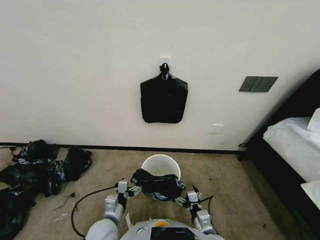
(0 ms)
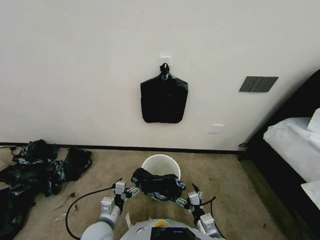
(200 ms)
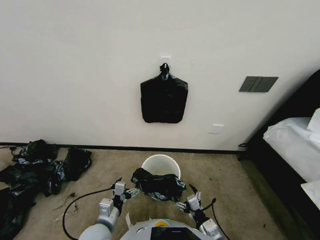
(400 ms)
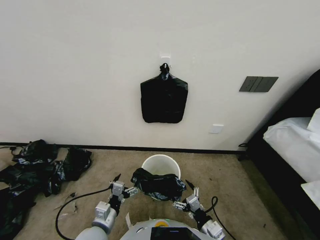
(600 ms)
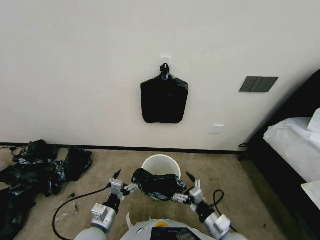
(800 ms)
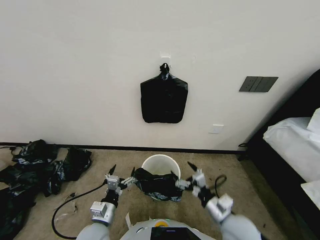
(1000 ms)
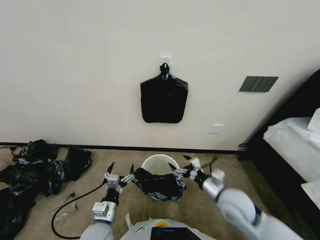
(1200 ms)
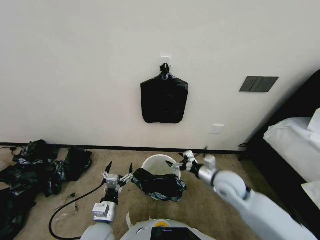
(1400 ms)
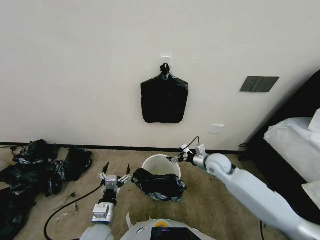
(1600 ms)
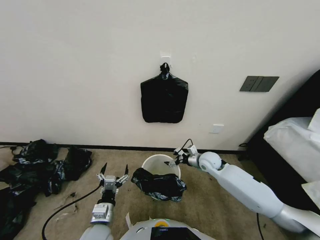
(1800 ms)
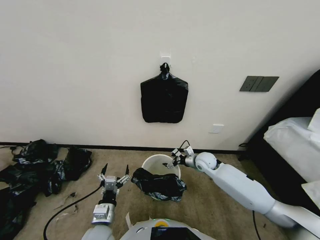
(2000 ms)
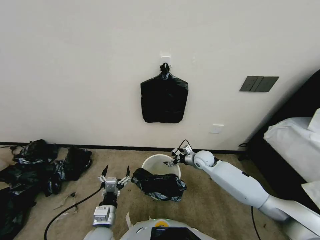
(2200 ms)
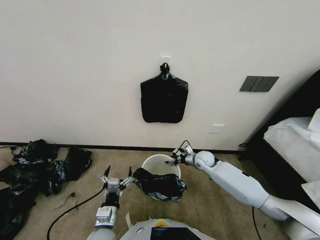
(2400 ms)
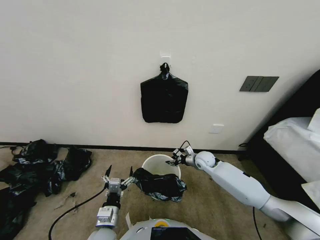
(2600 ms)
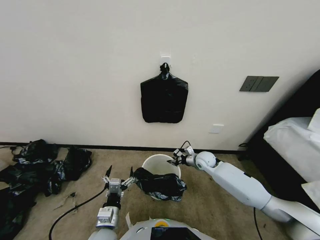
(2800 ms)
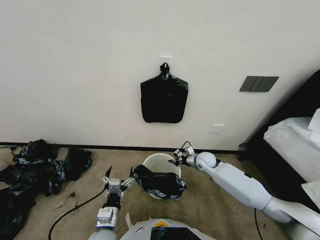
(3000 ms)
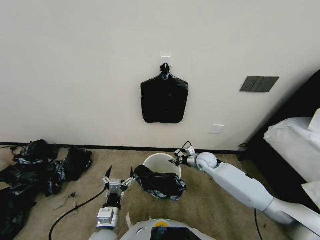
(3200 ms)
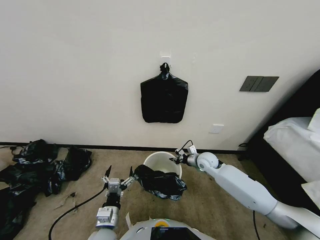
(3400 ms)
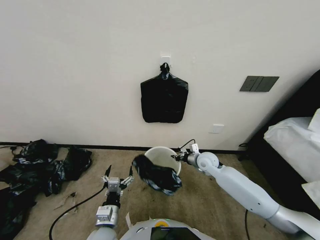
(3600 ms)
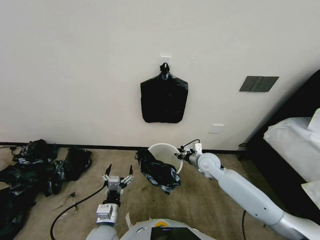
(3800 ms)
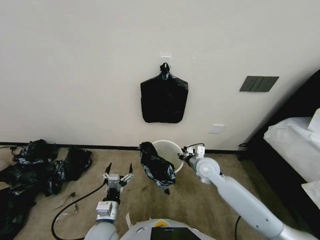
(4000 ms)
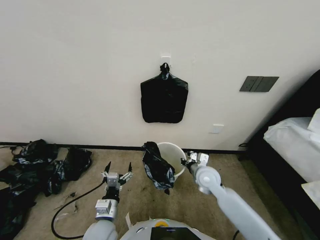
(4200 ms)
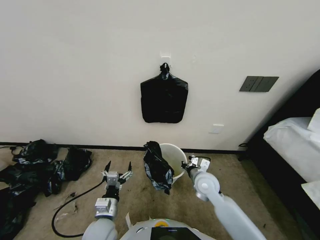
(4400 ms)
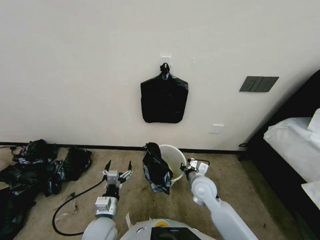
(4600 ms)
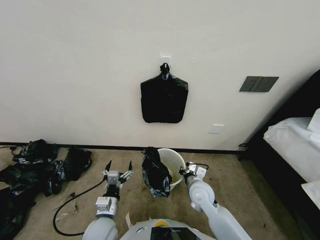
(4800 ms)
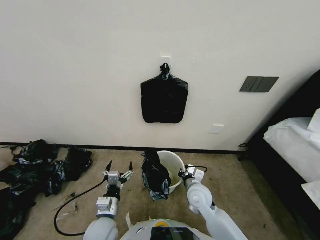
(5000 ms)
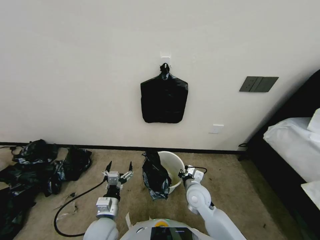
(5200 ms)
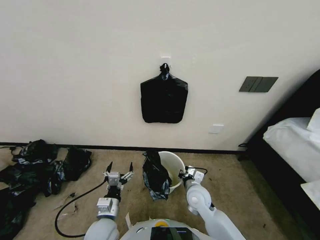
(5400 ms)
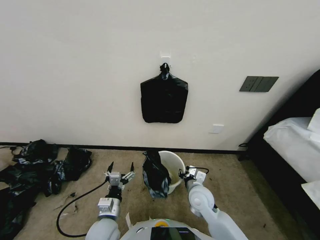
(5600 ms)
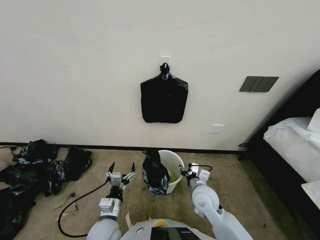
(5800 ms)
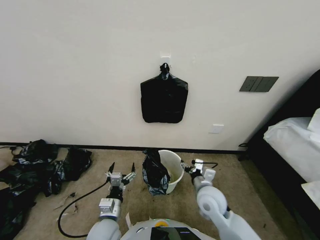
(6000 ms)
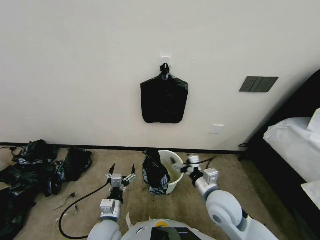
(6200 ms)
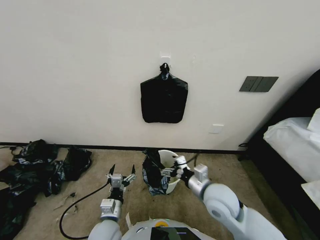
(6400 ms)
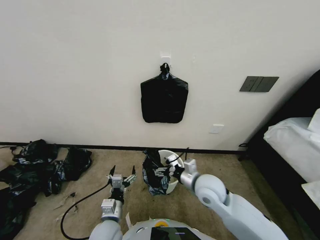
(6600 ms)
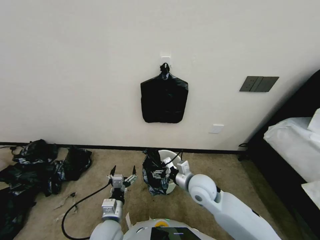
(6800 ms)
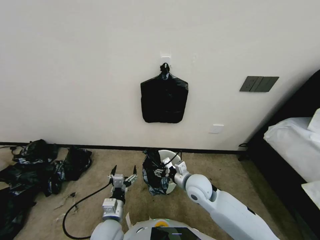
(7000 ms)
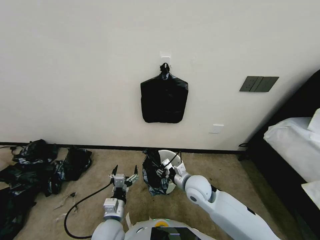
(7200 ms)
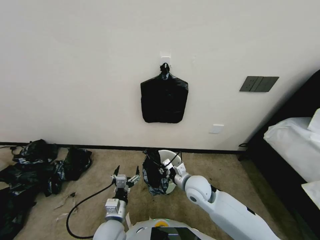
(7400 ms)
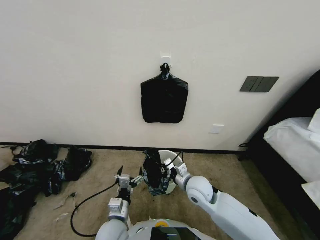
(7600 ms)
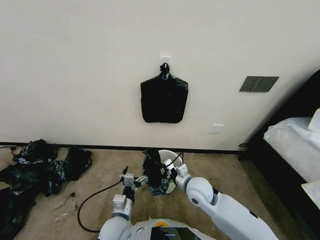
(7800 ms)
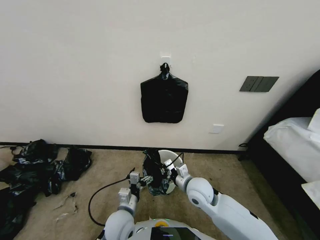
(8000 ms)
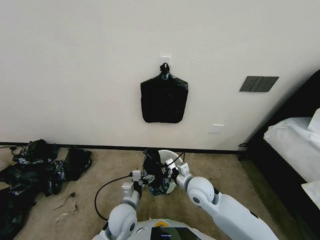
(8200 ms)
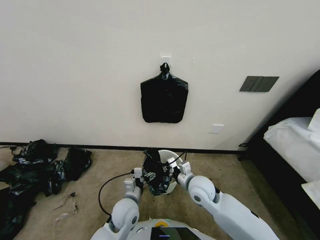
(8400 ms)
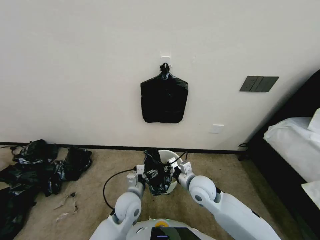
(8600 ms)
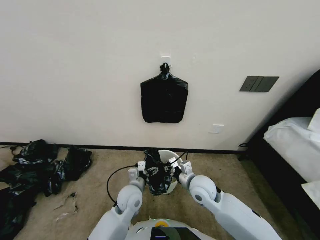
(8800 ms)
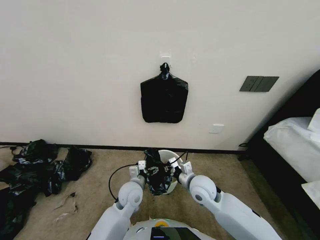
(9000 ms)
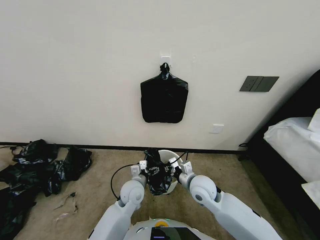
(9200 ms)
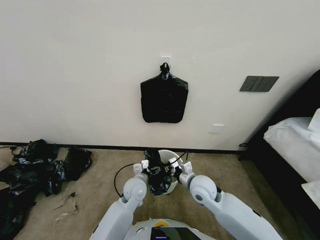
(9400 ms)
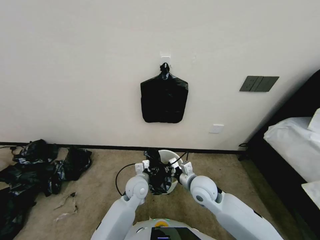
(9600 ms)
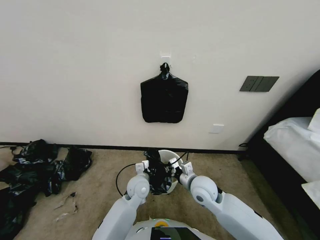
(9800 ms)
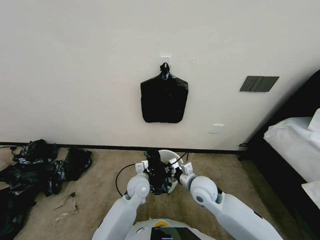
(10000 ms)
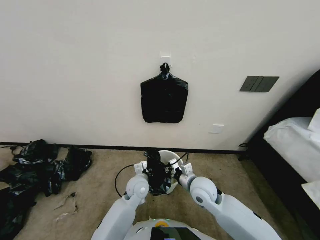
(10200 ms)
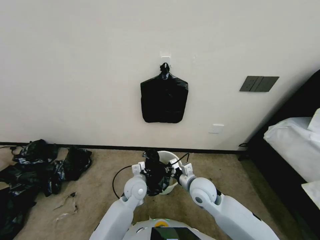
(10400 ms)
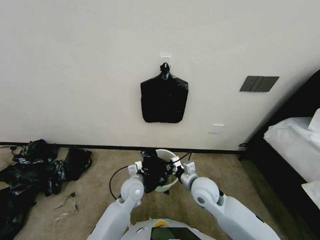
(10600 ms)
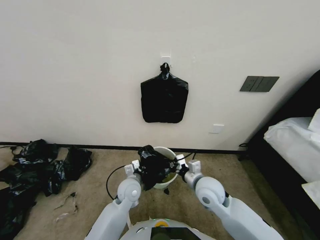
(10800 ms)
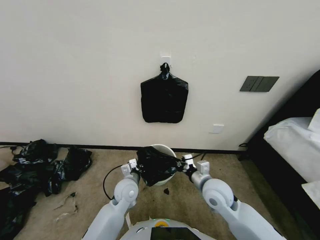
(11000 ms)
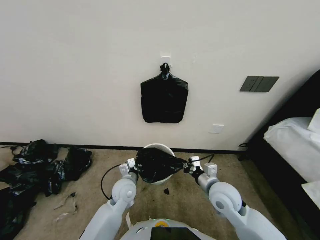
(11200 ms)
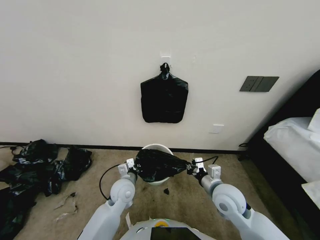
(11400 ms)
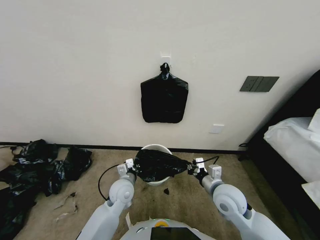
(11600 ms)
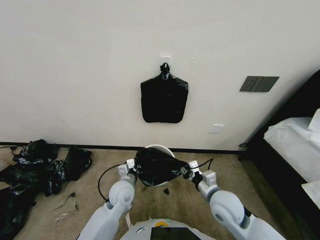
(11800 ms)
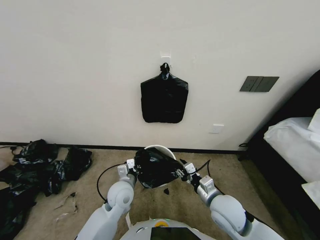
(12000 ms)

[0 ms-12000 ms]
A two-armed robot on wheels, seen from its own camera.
Task of the whole recording: Place a trash bag onto the trash bin.
0 ms to 1600 ms: The right gripper is displaced forward and upward by approximately 25 cm.
1600 ms to 3000 ms: The right gripper travels forward and downward by about 10 cm, and closes up.
3000 ms to 4400 ms: The right gripper is displaced backward by about 10 cm.
4400 ms to 6000 ms: The right gripper heads backward, covering some 5 cm, and opens up.
6000 ms to 7600 ms: The right gripper travels upward and back again, roughly 10 cm each way, and closes its fingers.
7600 ms to 9000 ms: The left gripper moves forward, about 10 cm.
9000 ms to 10400 ms: The left gripper closes its fingers.
10400 ms to 12000 ms: The left gripper moves to the left, approximately 5 cm; the right gripper goes some 10 cm backward and to the right.

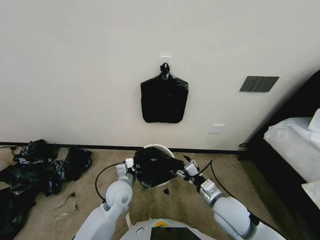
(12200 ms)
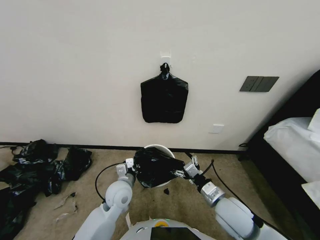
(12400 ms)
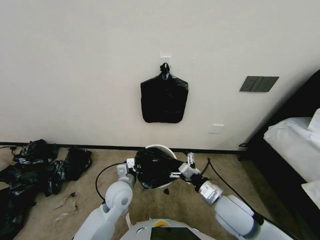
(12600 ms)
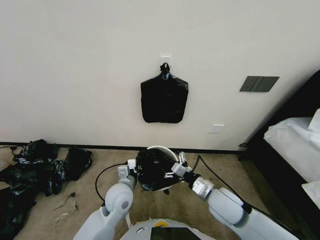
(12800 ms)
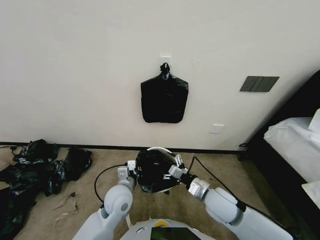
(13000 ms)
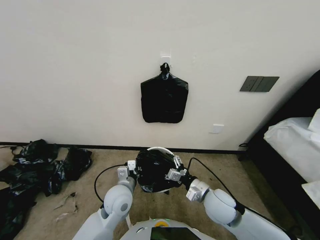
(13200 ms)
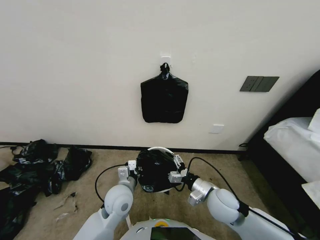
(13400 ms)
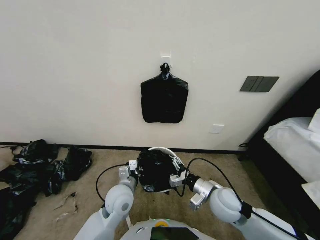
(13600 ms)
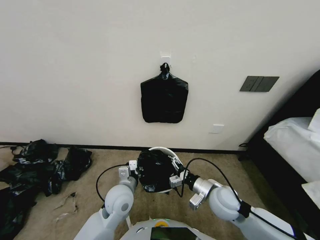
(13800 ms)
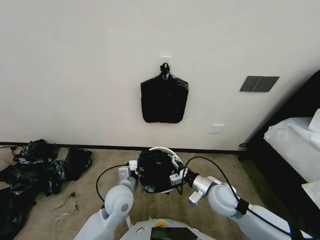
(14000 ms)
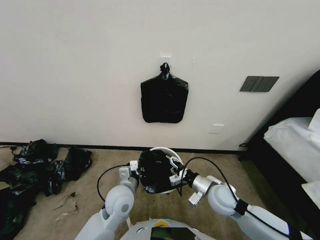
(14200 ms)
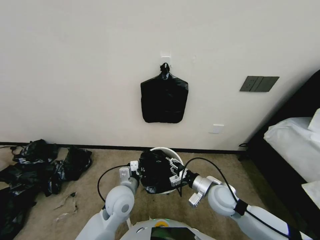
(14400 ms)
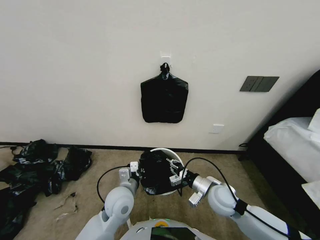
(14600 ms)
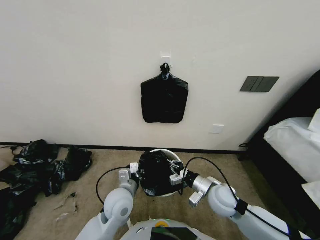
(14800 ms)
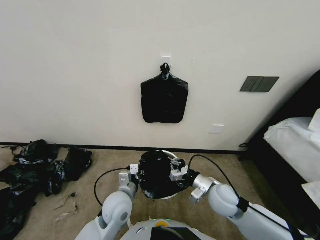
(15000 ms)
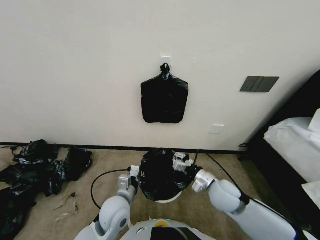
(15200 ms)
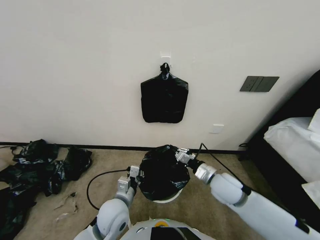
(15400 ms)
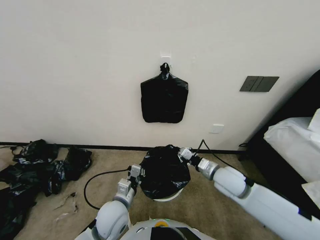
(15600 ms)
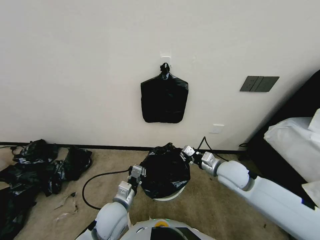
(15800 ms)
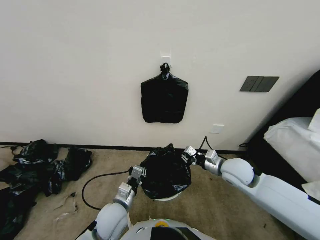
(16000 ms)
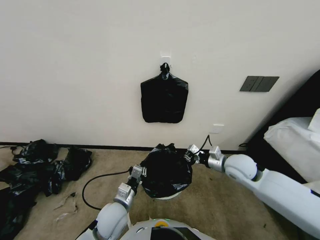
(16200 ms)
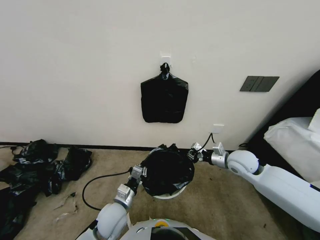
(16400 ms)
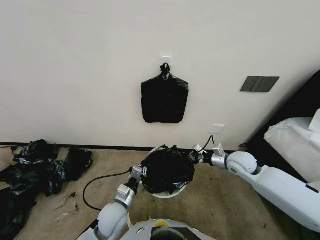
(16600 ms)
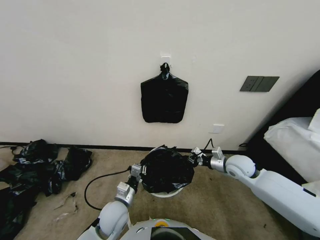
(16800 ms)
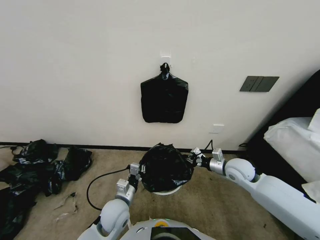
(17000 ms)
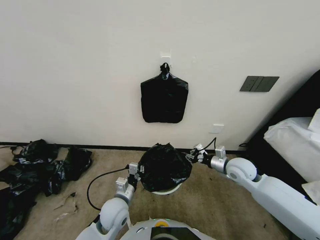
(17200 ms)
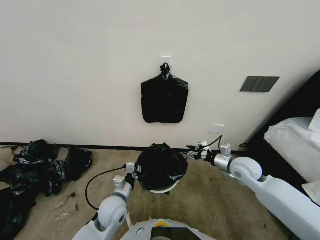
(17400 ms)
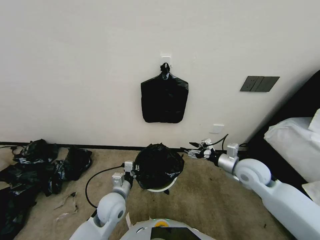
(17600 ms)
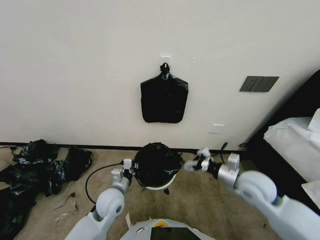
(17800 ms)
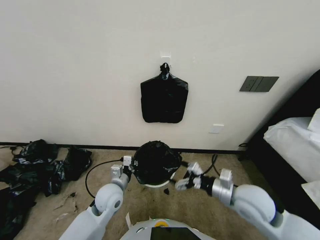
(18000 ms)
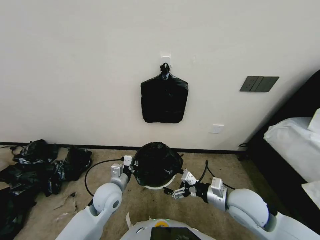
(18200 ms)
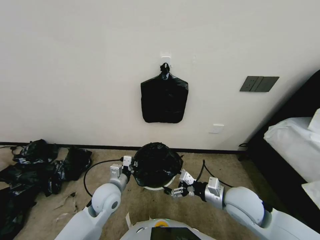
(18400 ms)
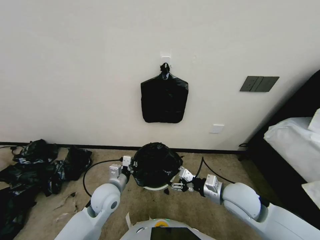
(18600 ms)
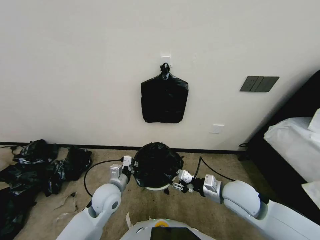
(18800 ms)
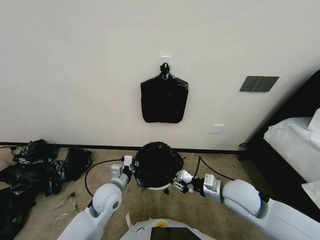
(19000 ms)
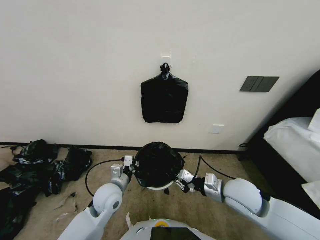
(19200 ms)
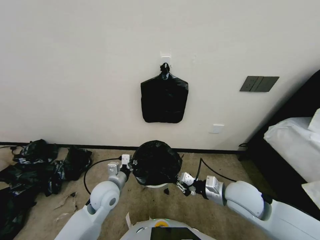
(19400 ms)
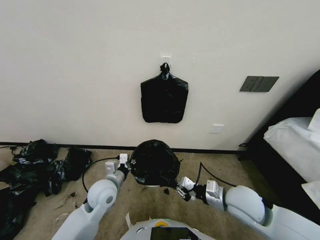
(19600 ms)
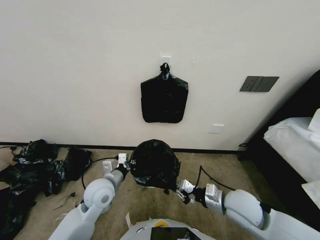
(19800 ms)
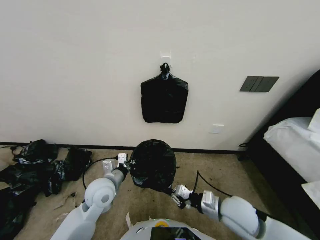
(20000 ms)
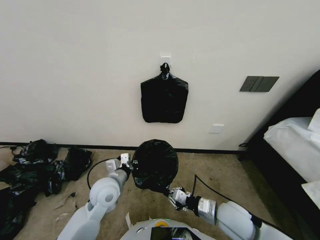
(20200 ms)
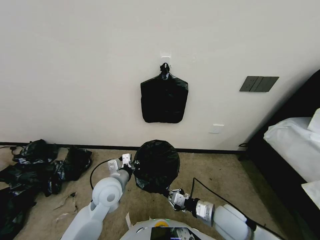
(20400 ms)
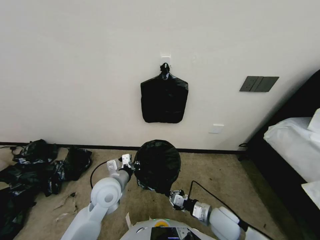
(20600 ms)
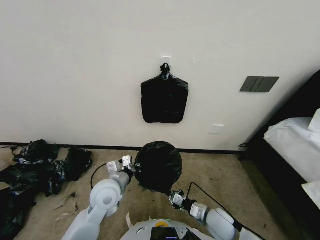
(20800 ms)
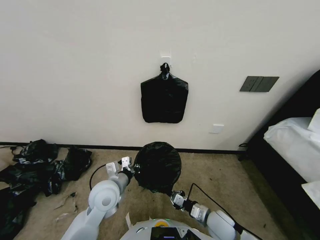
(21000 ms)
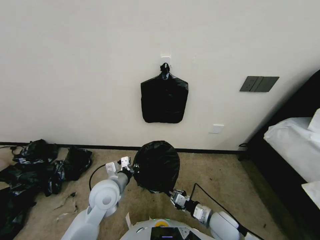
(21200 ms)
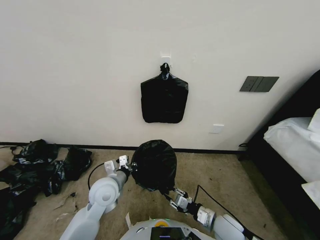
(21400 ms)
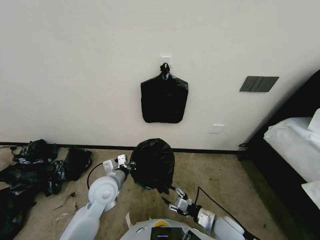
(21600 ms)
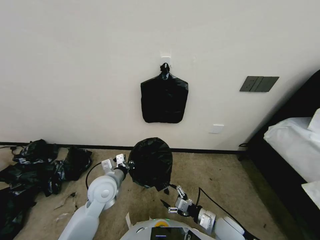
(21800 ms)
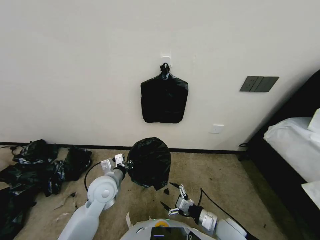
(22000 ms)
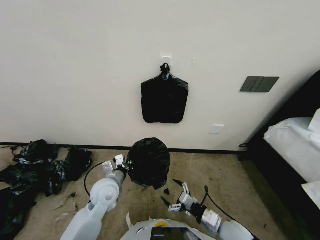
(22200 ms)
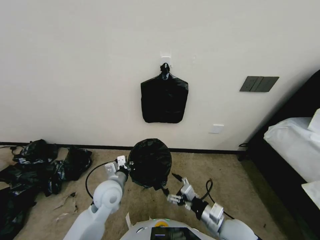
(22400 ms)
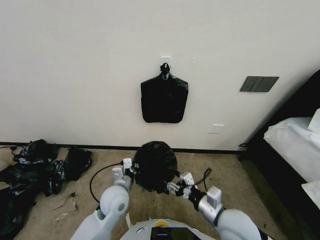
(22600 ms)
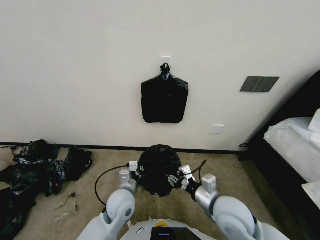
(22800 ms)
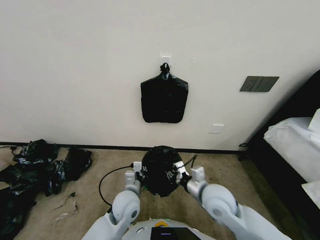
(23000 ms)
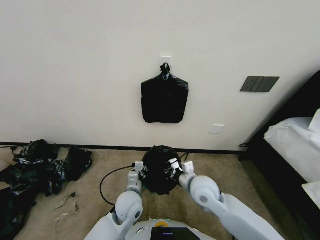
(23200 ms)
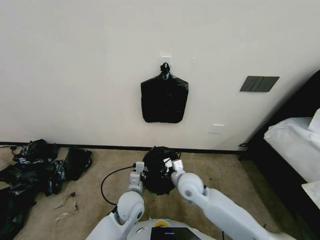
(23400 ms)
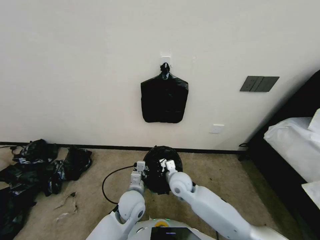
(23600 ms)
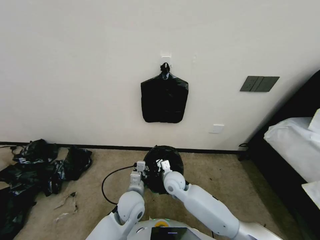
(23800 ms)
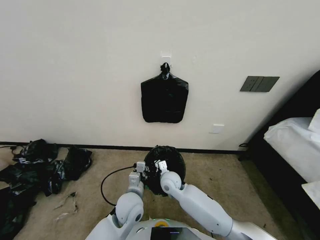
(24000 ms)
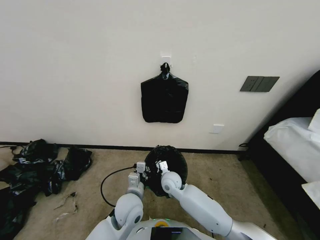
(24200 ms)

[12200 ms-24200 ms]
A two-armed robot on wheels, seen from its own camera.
Task of the whole recording: Place a trash bag onto the trash bin.
12200 ms to 13800 ms: The right gripper opens.
13800 ms to 15200 ms: The right gripper closes up.
15200 ms to 16600 ms: The left gripper shifts by approximately 5 cm. The right gripper moves forward and to the right, approximately 15 cm.
16600 ms to 18200 ms: The right gripper travels backward and to the left by about 15 cm, and opens its fingers. Meanwhile the left gripper goes roughly 5 cm forward.
18200 ms to 19800 ms: The right gripper closes its fingers.
19800 ms to 21200 ms: The right gripper goes approximately 15 cm downward.
21200 ms to 22600 ms: The right gripper goes some 10 cm upward, and opens its fingers.
22600 ms to 24200 ms: The right gripper heads forward, to the left and downward, covering approximately 25 cm, and closes its fingers, while the left gripper travels to the right by some 5 cm.
